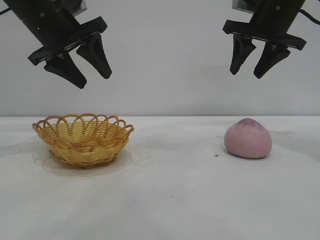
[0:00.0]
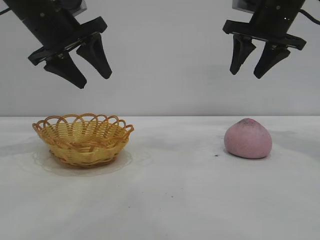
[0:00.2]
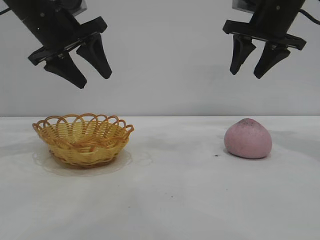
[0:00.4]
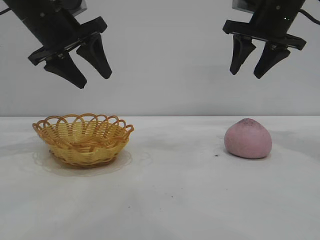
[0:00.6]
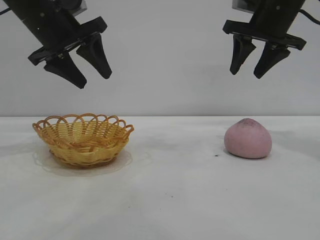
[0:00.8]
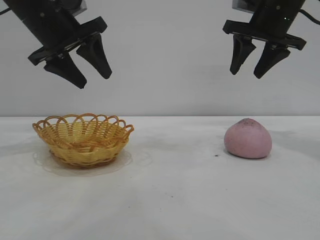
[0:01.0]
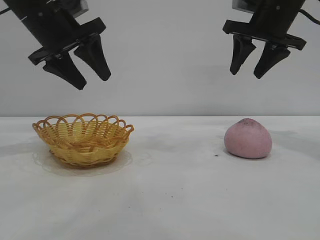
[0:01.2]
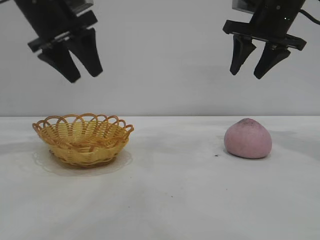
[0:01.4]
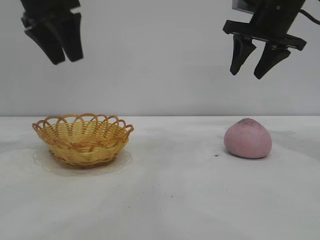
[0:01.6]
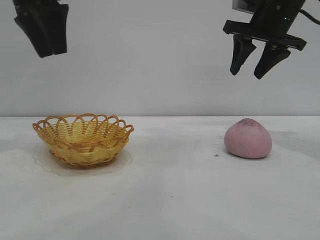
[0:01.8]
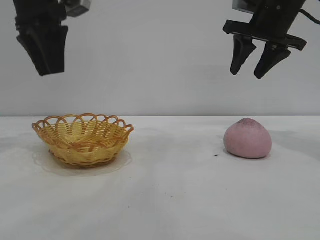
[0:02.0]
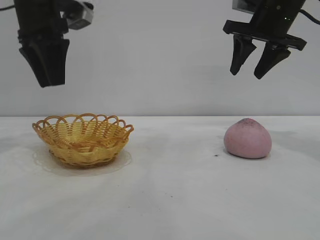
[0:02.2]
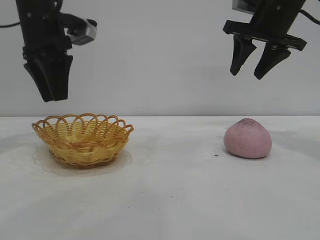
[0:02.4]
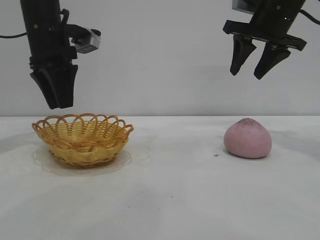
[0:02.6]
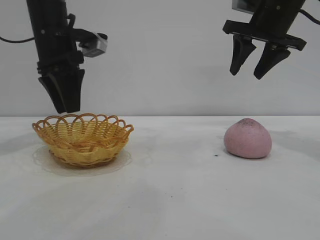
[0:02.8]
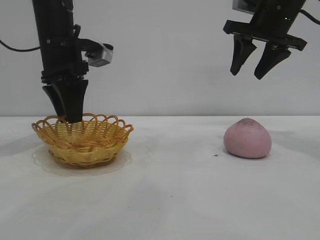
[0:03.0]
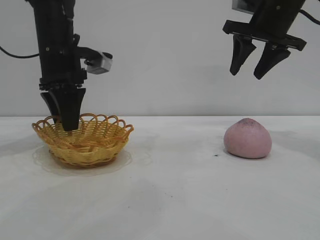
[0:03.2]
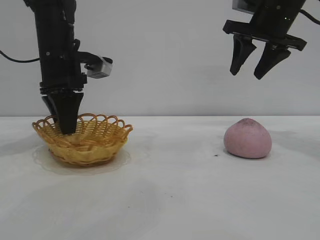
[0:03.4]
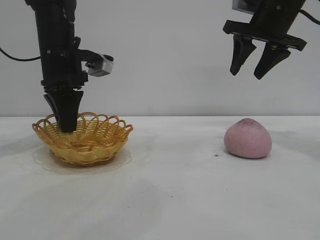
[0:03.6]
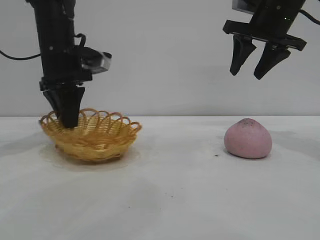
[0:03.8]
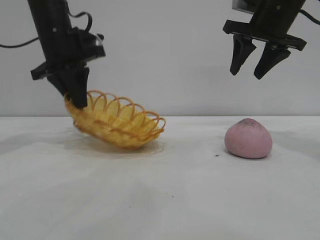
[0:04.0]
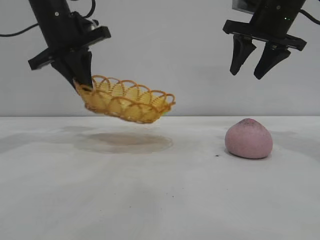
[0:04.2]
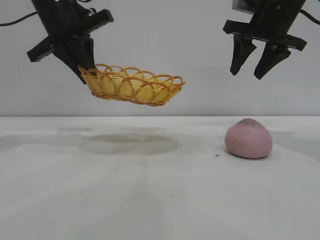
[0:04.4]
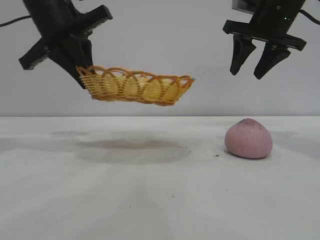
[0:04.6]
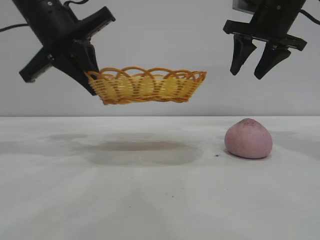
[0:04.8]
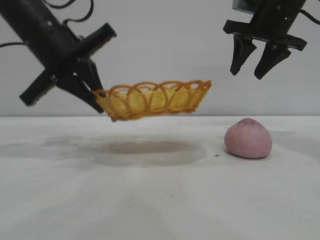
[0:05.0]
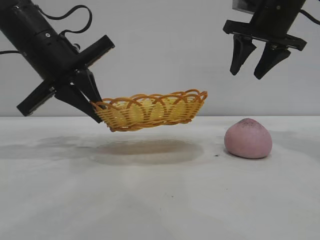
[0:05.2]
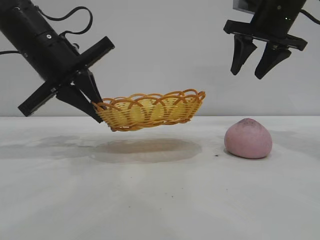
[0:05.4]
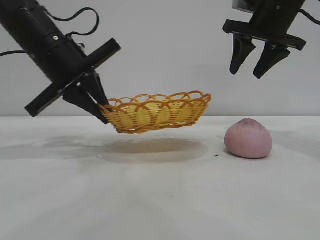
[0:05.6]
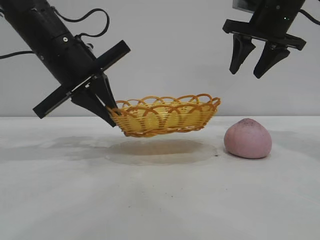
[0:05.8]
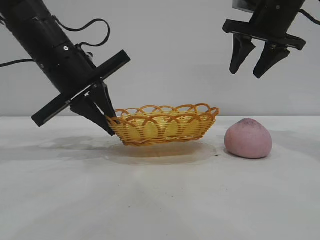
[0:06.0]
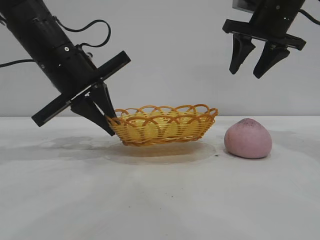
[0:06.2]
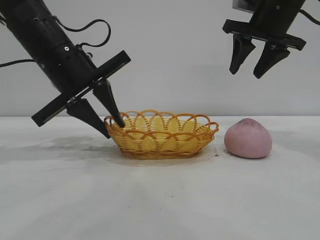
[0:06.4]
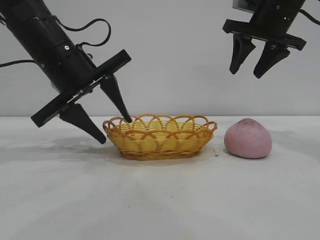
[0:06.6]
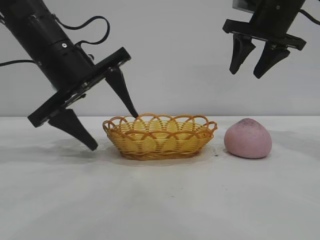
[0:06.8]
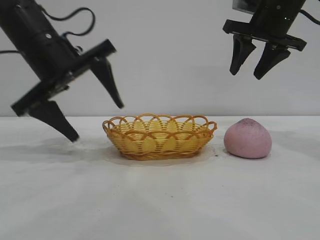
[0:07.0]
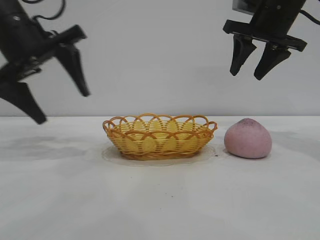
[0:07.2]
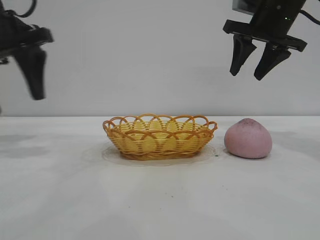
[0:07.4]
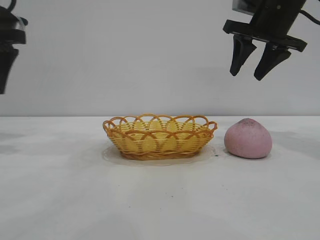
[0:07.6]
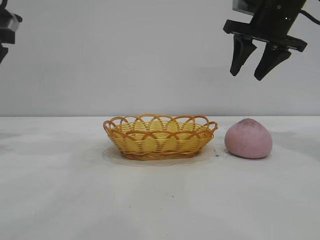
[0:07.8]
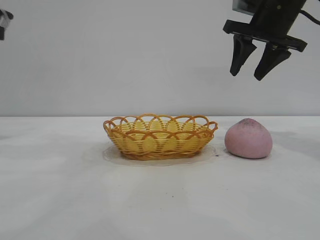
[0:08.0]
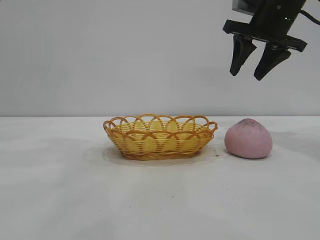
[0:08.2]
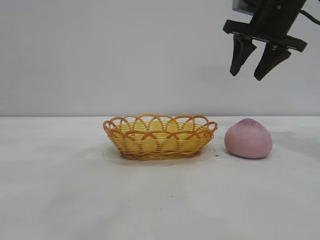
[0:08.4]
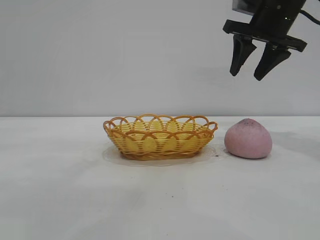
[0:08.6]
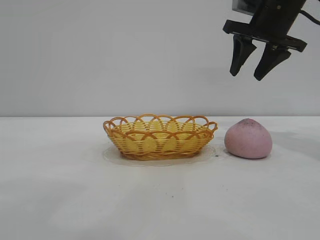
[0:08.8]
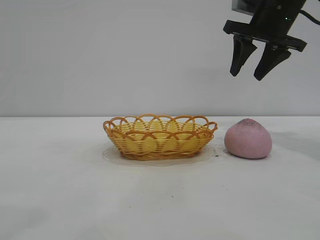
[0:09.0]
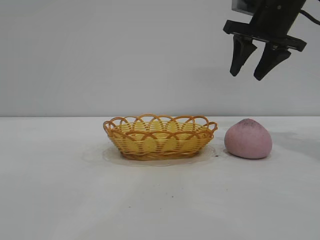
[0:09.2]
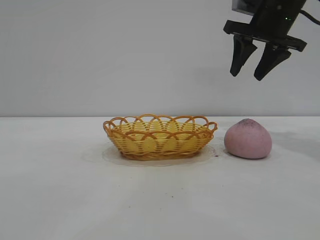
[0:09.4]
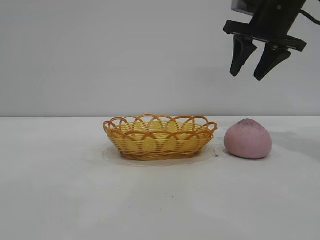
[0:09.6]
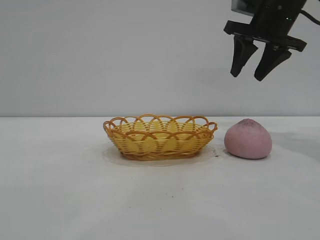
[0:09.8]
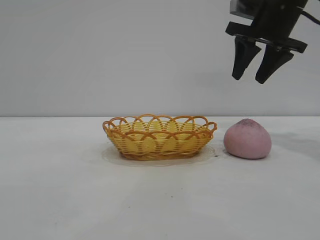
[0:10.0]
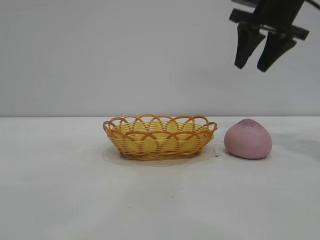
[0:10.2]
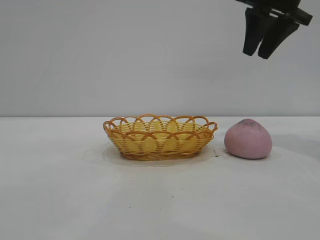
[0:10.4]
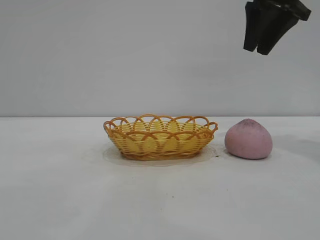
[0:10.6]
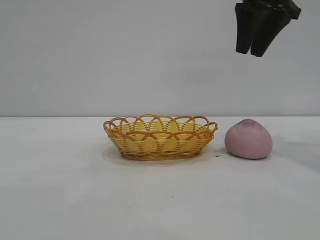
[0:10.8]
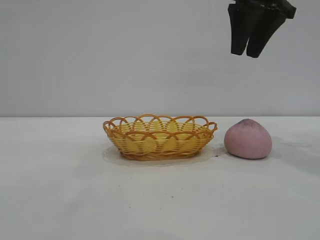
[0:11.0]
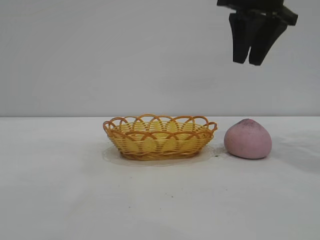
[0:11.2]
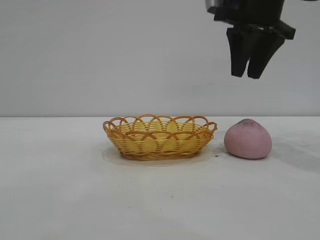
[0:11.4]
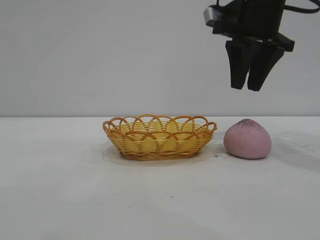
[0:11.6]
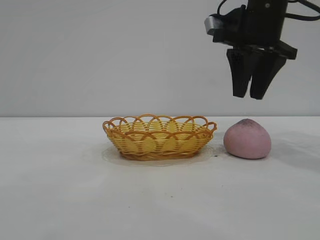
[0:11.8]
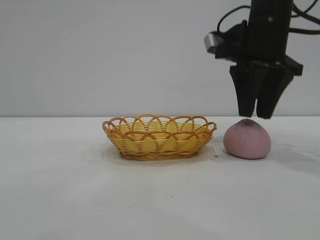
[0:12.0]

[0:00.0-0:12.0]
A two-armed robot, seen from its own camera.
Task of the whole recording: pick up the peach and put it into the basket.
Step, 0:00.0 to 0:07.2: Move the basket to the center of view.

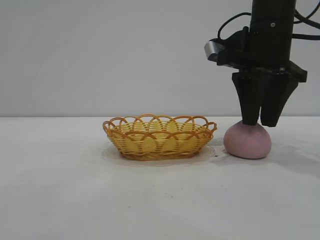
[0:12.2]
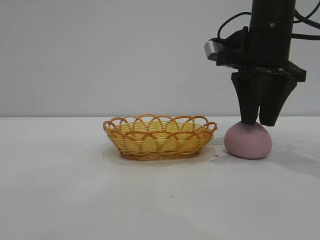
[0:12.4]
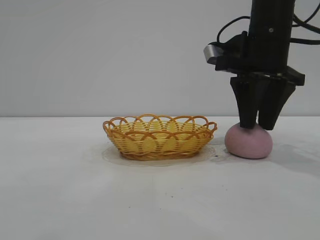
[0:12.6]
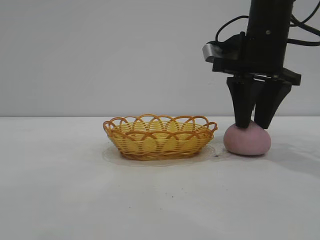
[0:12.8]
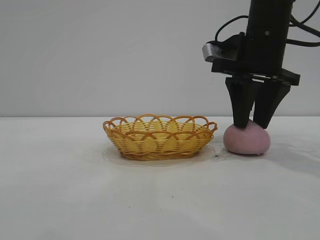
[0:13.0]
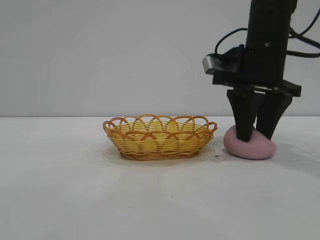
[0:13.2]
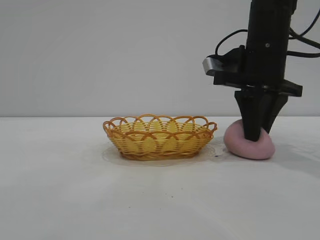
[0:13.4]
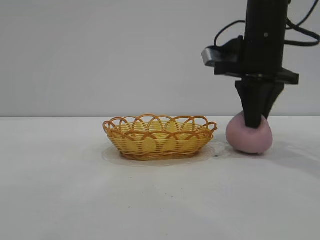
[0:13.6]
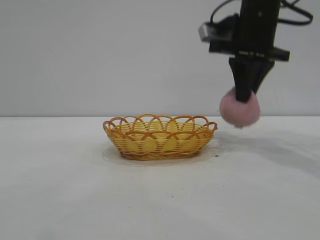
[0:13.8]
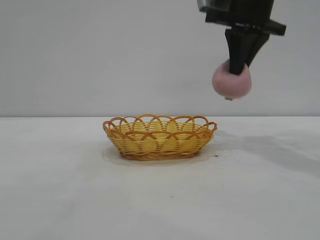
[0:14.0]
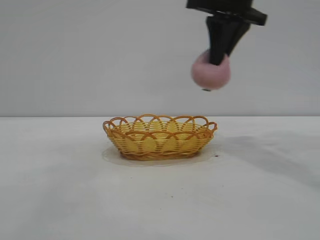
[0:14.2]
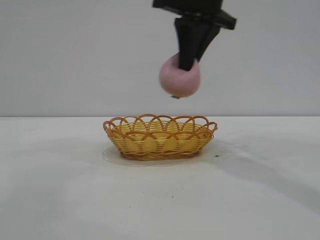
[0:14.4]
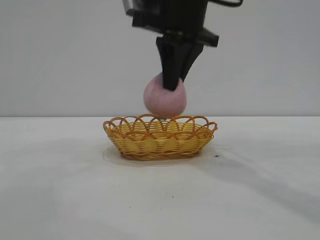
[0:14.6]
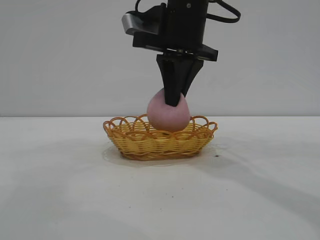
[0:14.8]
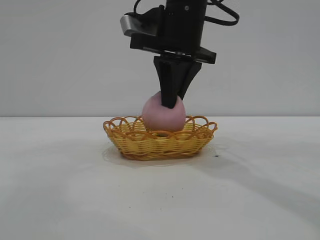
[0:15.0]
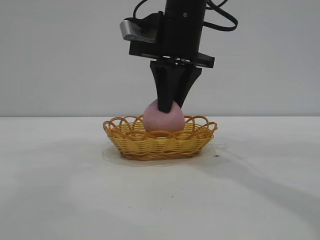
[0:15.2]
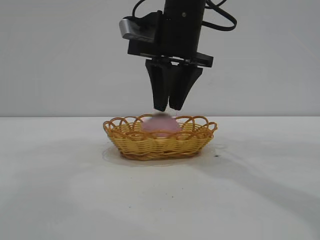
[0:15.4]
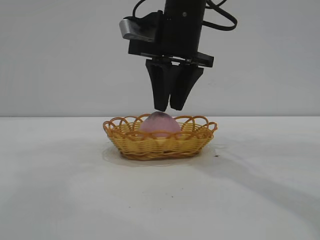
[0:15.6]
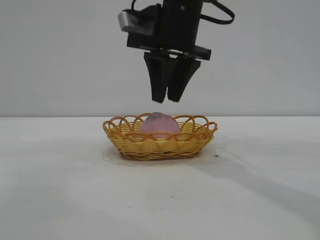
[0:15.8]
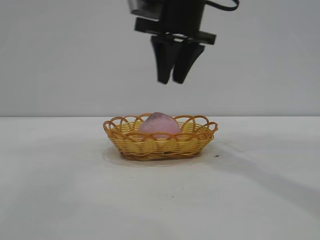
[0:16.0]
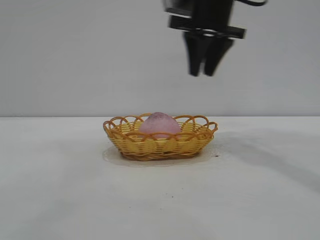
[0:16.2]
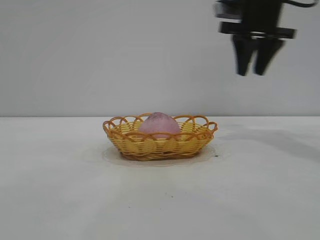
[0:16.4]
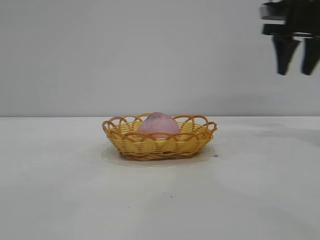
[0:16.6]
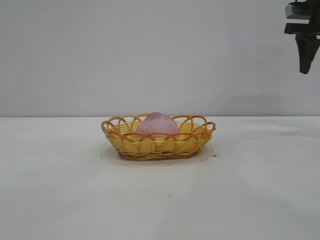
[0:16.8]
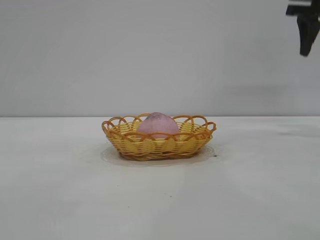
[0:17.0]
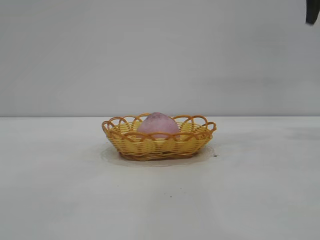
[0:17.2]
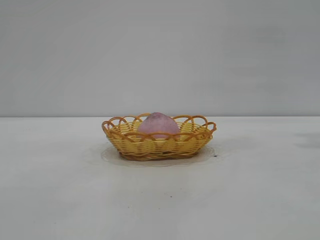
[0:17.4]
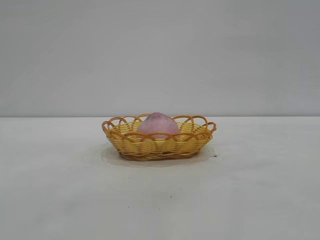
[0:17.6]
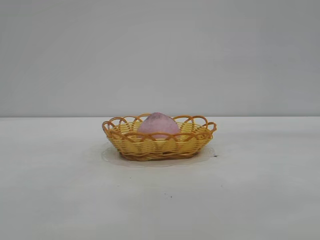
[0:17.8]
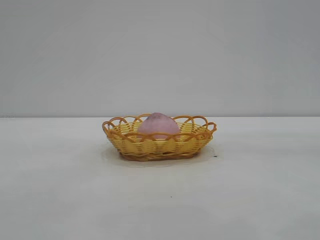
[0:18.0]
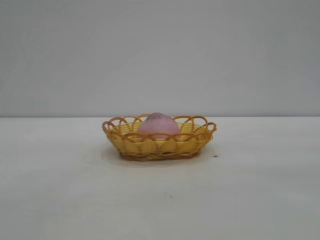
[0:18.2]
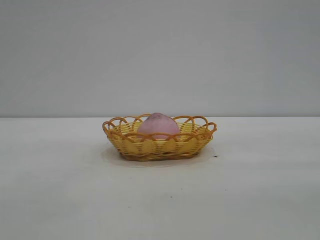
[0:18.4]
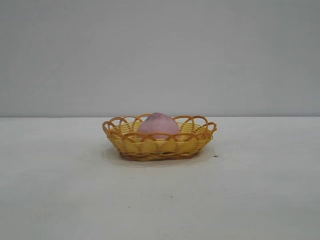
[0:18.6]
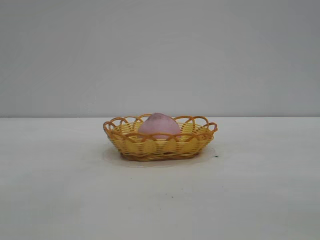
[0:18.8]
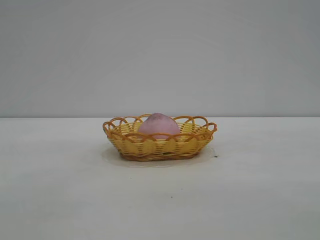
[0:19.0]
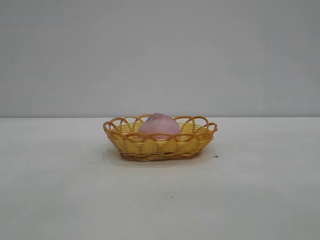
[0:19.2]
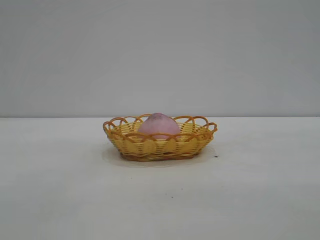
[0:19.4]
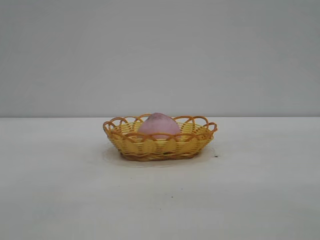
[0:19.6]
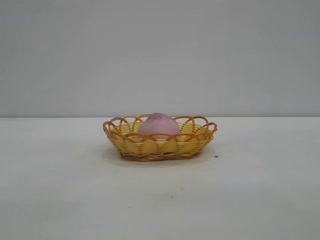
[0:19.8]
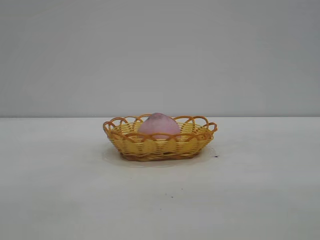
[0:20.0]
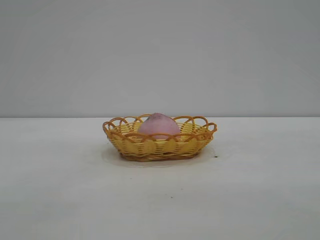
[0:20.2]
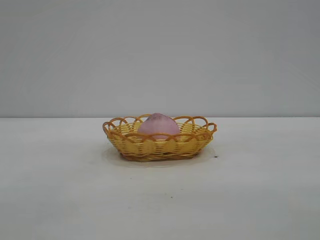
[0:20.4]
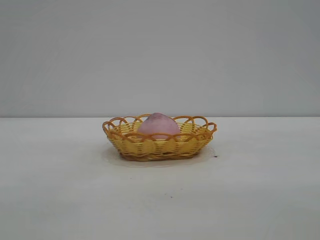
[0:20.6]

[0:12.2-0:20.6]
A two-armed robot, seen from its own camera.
Task of the whole recording: pick up the peach and put it into the basket.
Step, 0:14.0 to 0:16.0: place the peach into the basket.

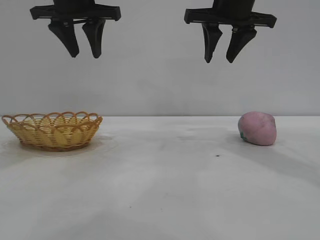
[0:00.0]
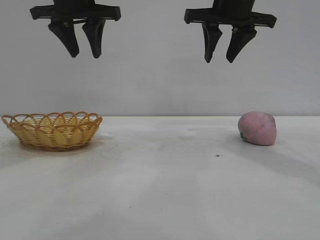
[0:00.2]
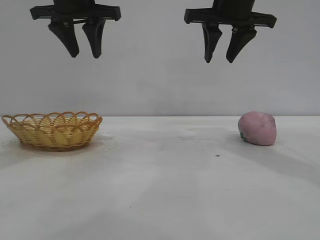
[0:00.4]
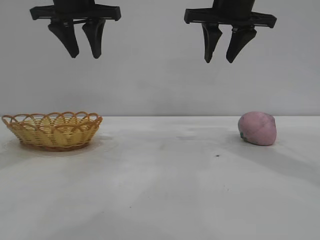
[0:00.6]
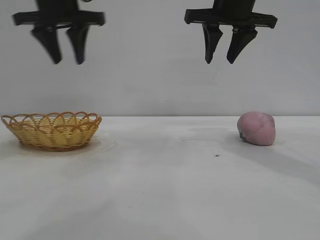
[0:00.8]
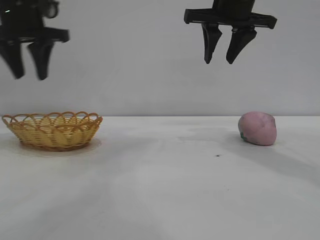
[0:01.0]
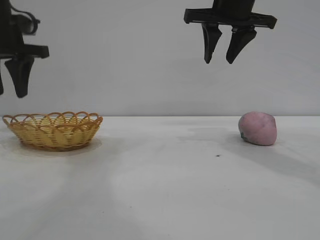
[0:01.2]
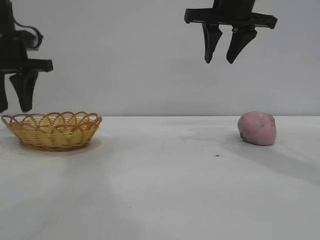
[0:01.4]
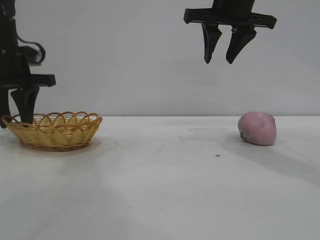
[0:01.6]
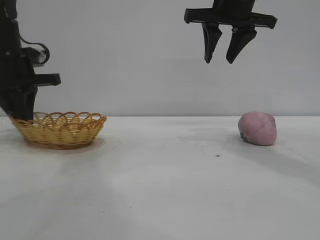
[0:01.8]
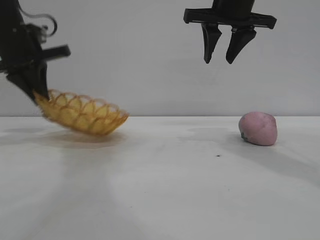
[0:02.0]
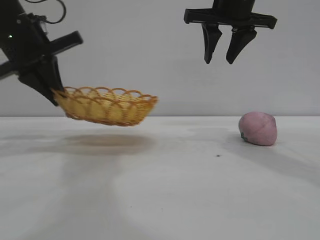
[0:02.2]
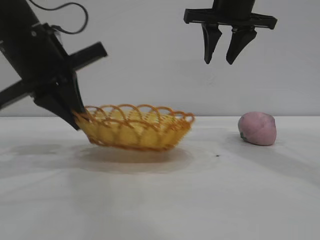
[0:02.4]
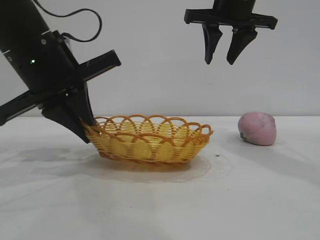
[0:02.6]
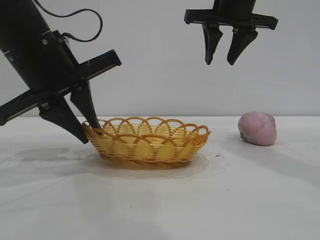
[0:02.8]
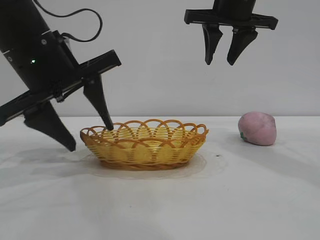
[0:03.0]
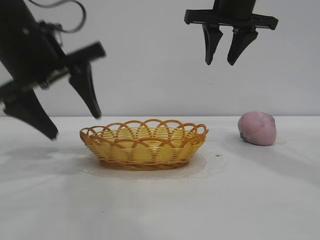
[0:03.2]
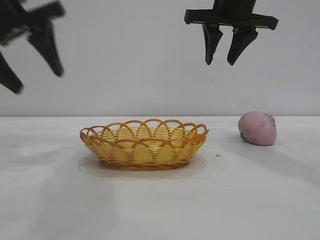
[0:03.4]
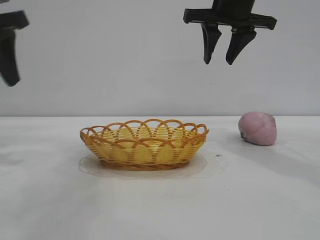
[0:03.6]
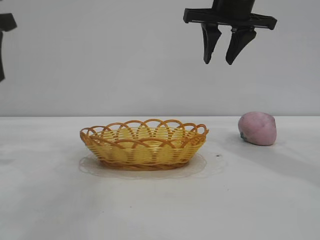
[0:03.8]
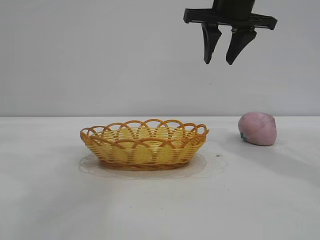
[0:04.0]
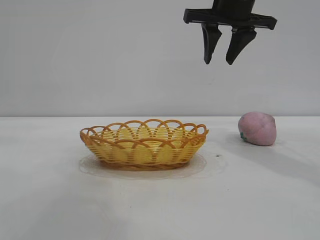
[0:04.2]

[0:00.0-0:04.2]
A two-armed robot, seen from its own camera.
Task of the whole recording: pick up the peach and put it into the basket.
Step, 0:00.0 to 0:03.2: Move the basket to the center of view.
